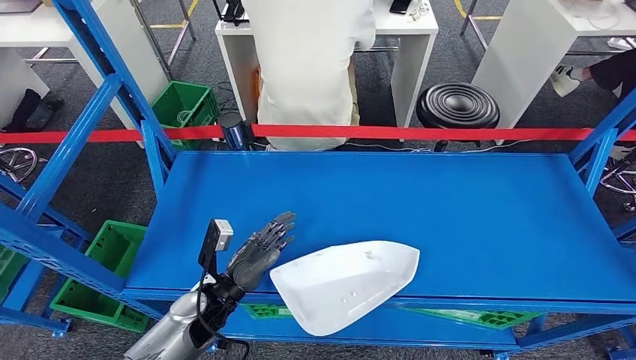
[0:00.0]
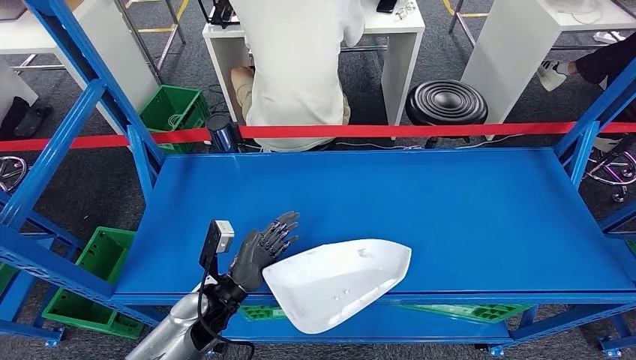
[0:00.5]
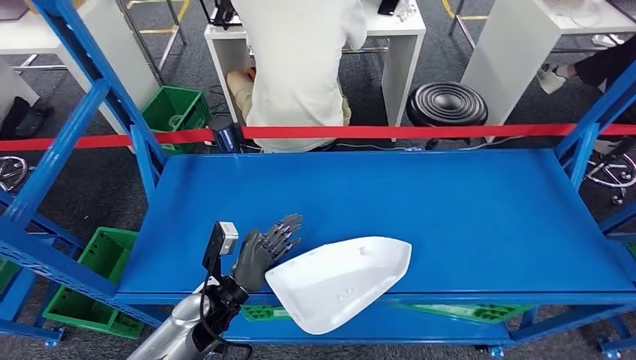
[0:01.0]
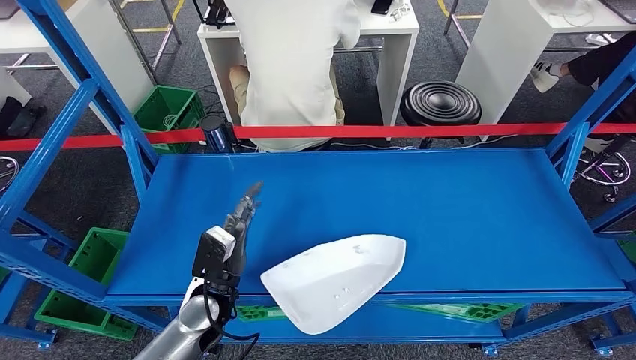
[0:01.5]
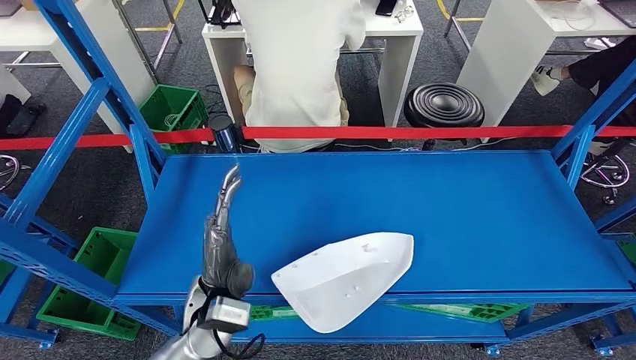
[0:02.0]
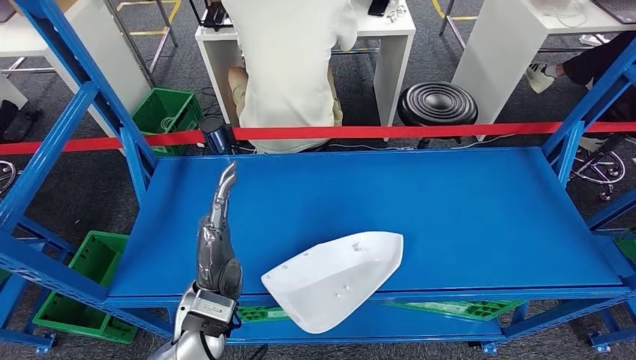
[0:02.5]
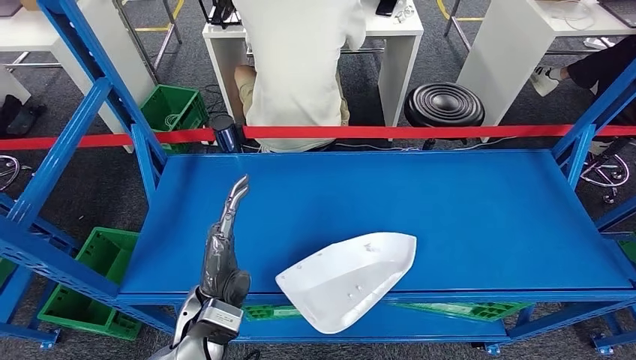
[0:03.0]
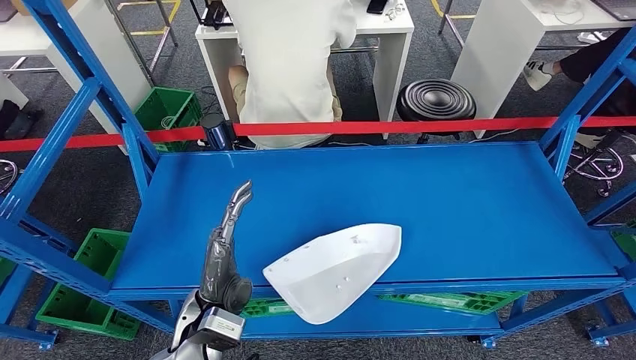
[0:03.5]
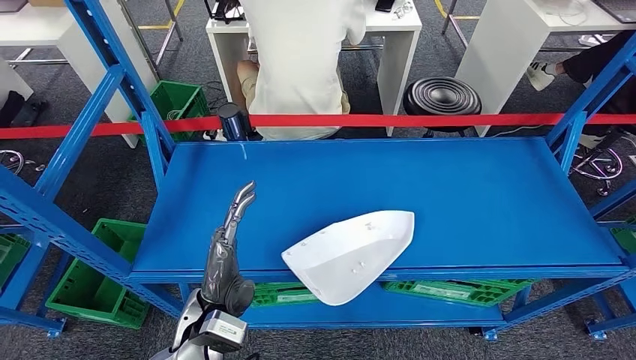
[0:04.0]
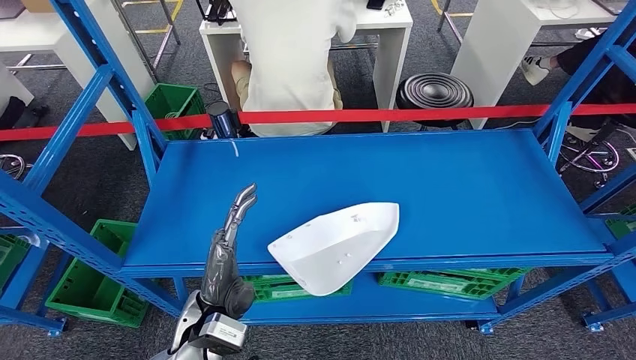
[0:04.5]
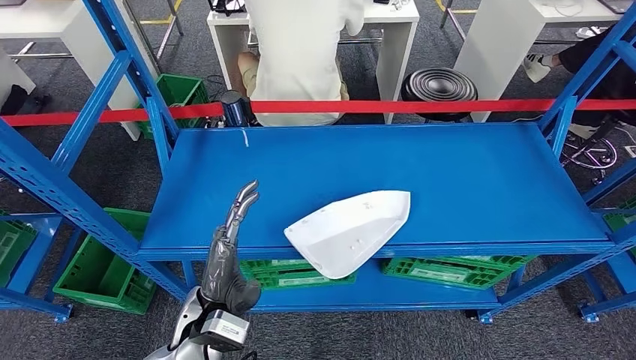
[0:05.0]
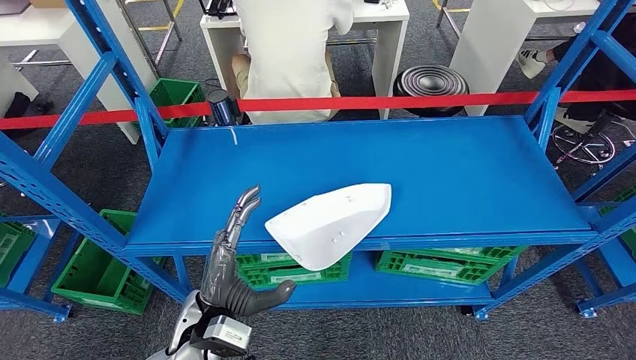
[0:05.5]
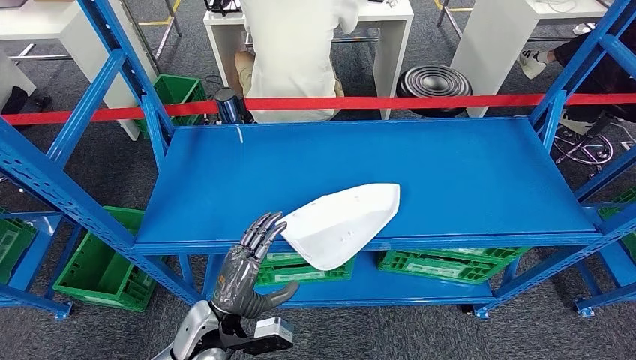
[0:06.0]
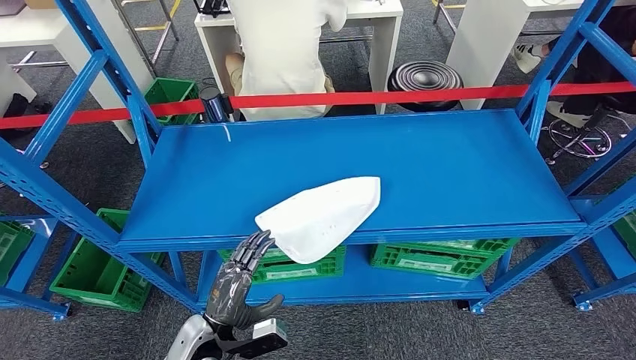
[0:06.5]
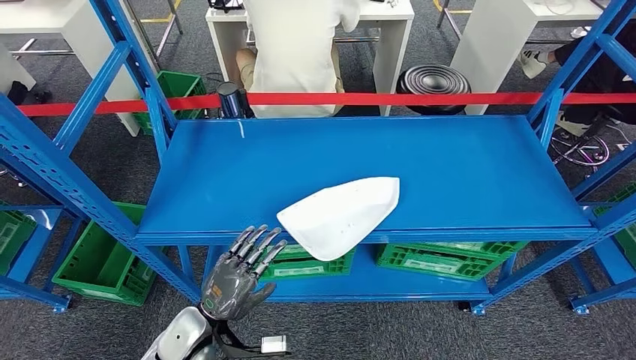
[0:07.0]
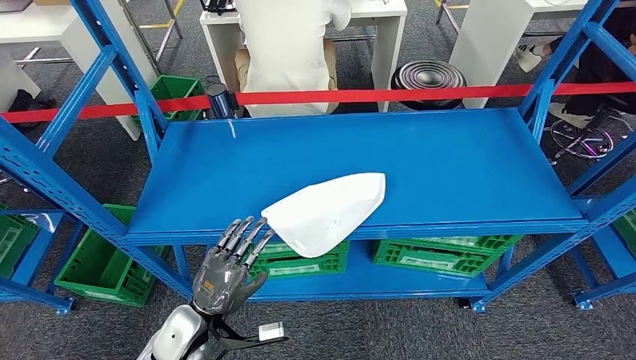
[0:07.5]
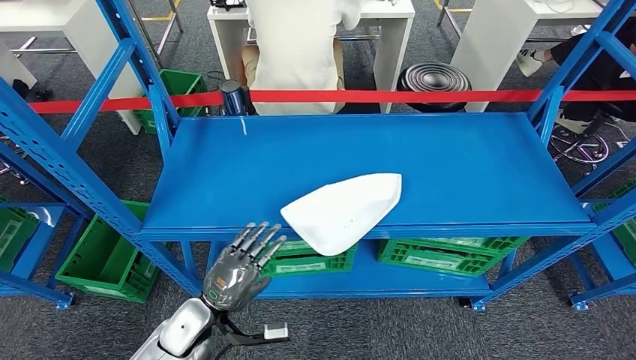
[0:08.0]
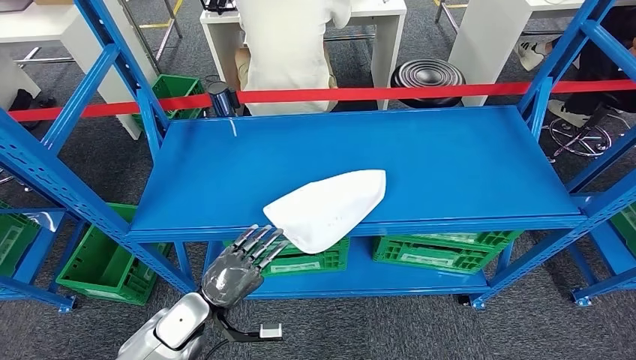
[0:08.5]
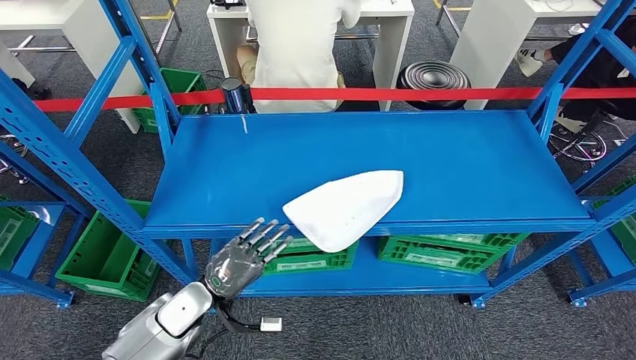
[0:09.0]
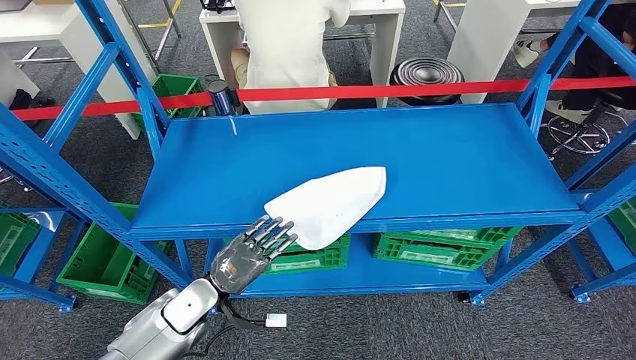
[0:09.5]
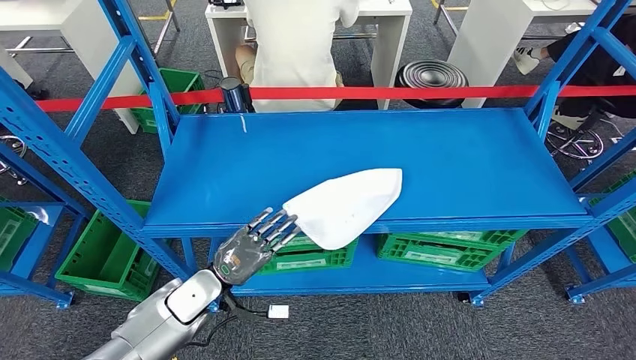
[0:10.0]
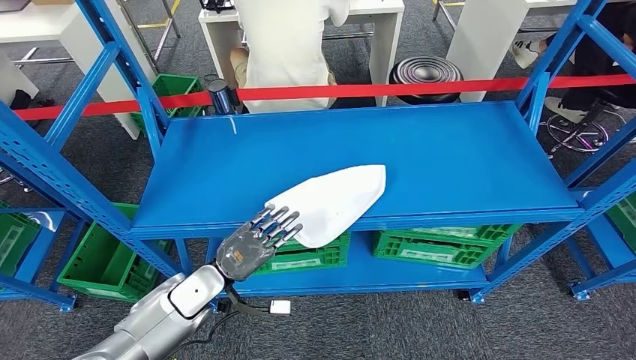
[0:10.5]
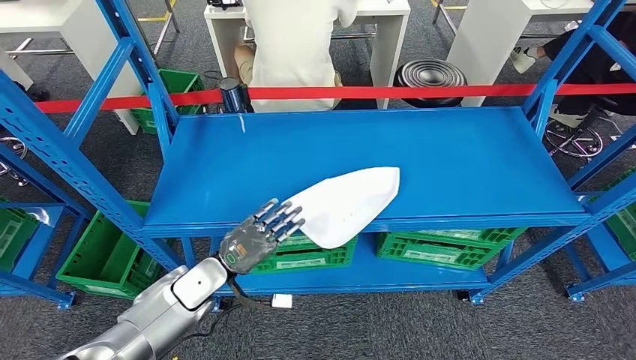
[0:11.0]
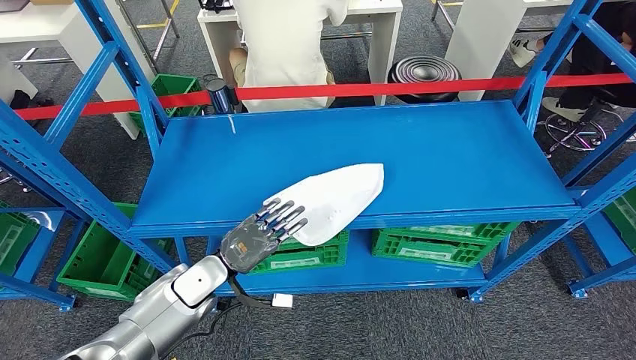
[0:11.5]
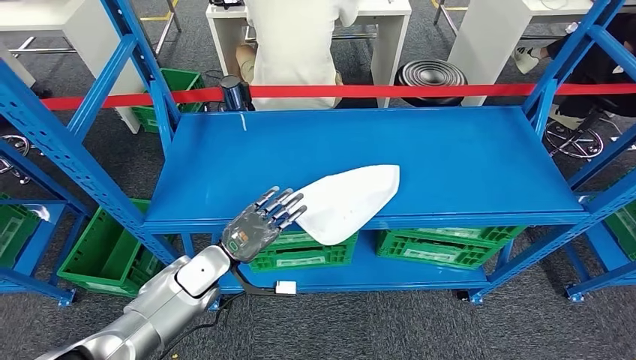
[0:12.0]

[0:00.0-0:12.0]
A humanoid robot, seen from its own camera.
0:08.0 to 0:10.0: The left hand travels forward by roughly 5 cm. Meanwhile the right hand shifts by roughly 5 cm.
0:10.0 to 0:12.0: The hands make only small movements.

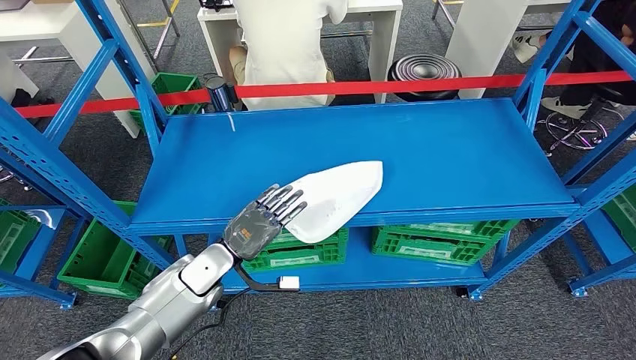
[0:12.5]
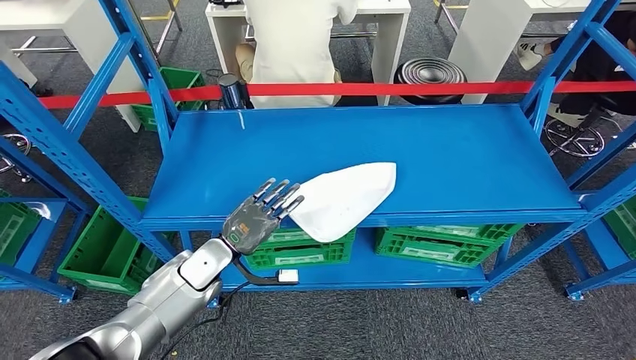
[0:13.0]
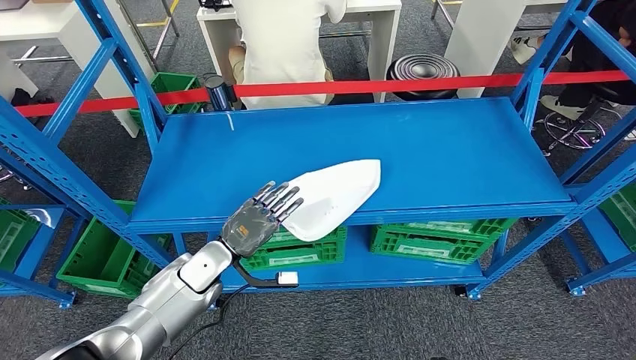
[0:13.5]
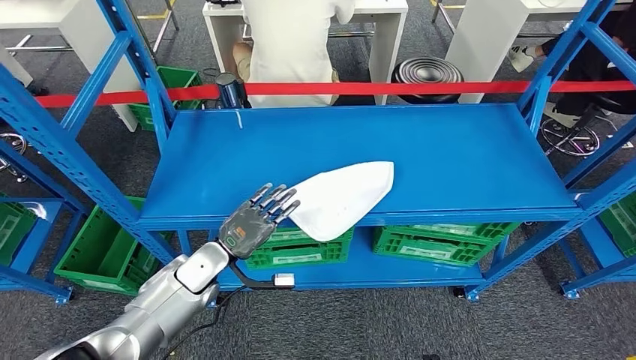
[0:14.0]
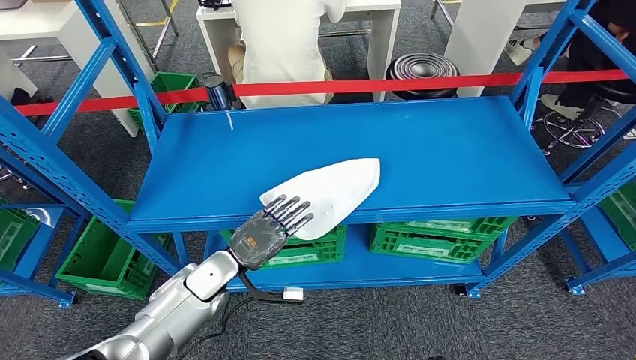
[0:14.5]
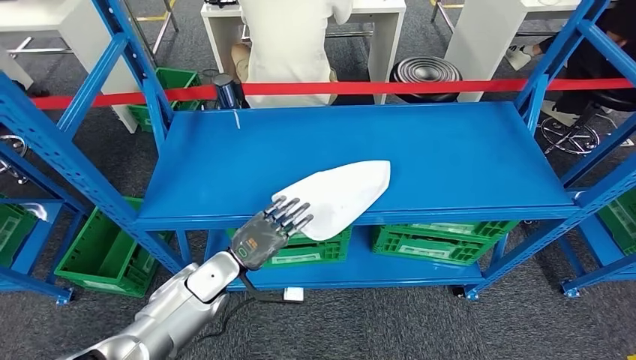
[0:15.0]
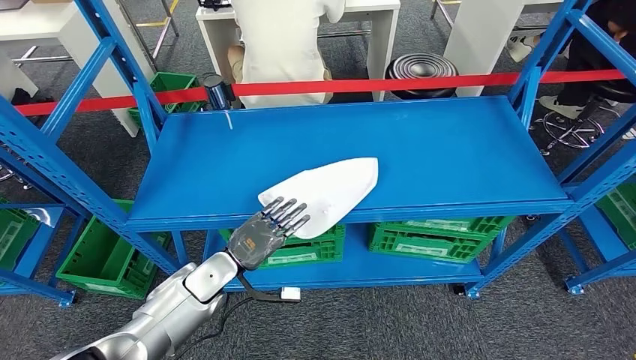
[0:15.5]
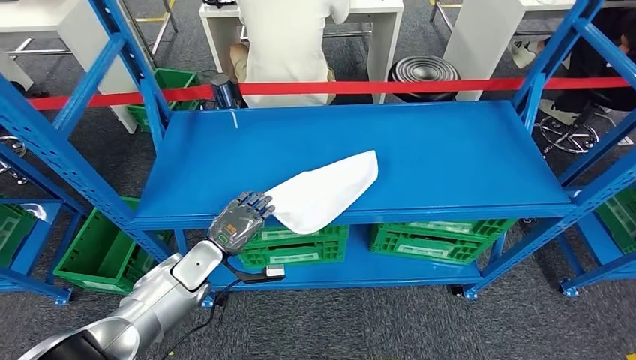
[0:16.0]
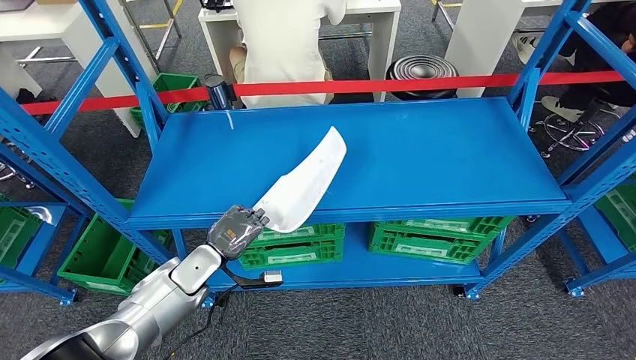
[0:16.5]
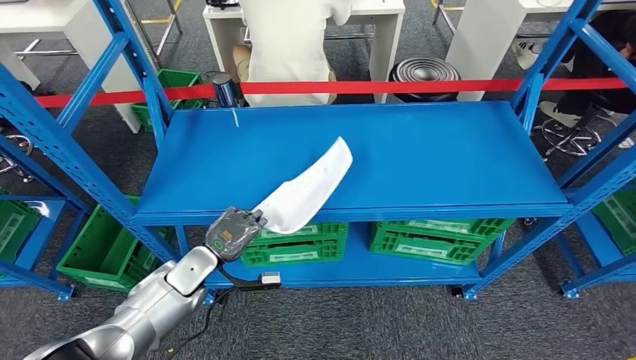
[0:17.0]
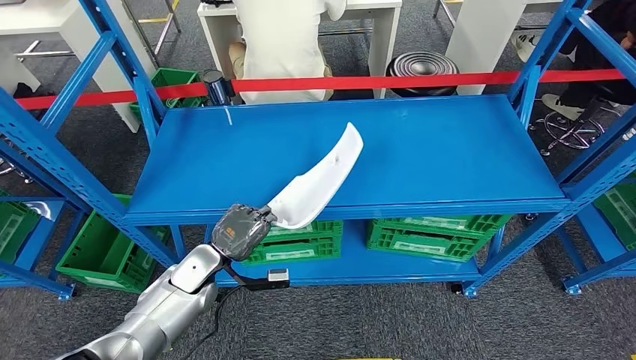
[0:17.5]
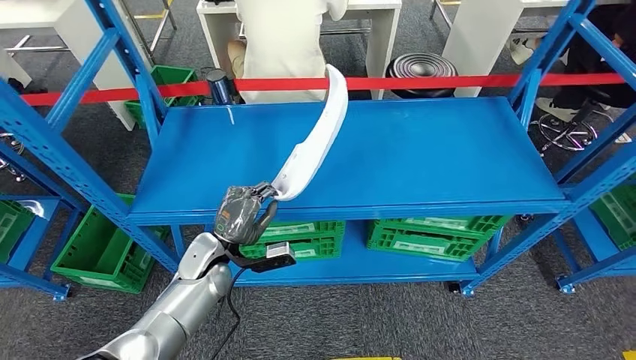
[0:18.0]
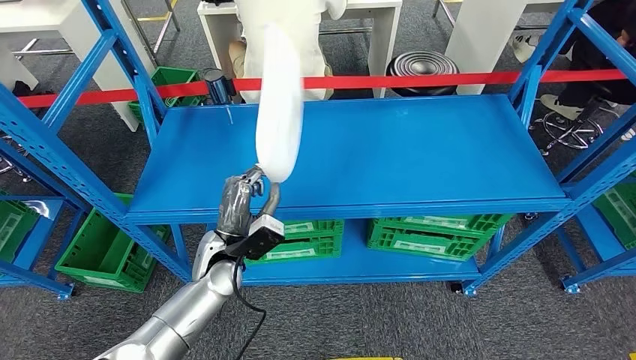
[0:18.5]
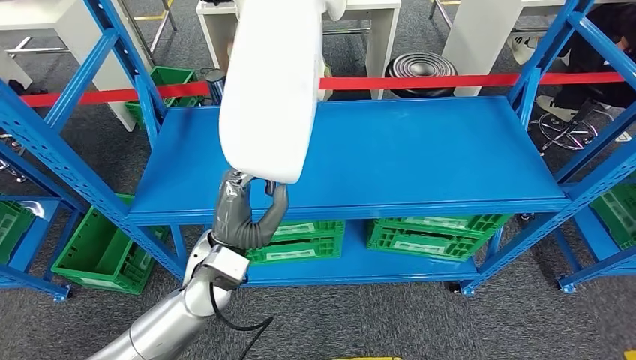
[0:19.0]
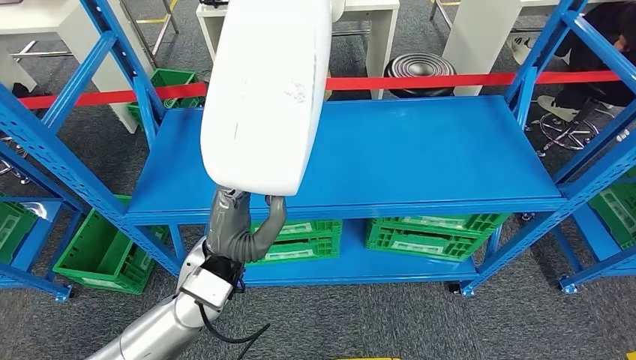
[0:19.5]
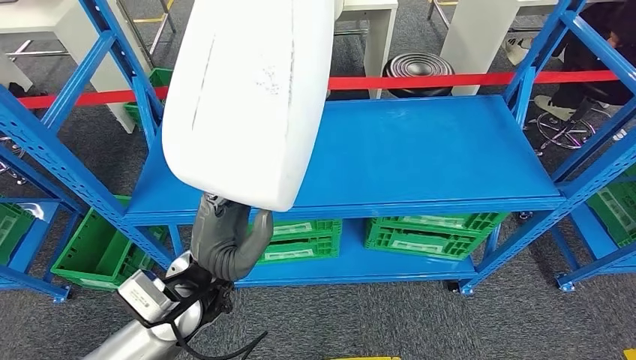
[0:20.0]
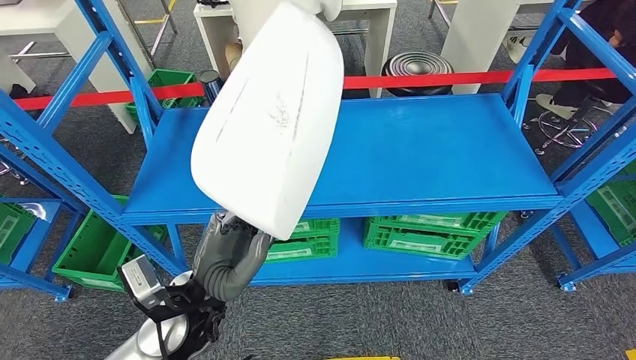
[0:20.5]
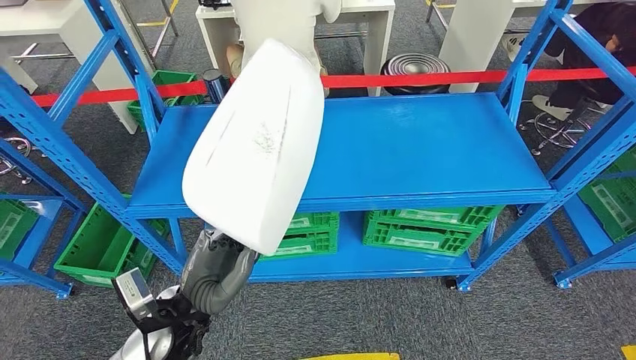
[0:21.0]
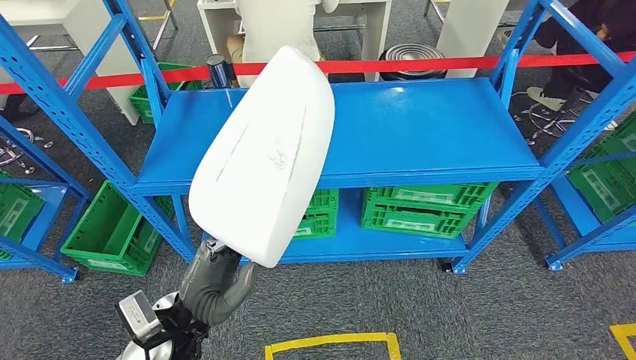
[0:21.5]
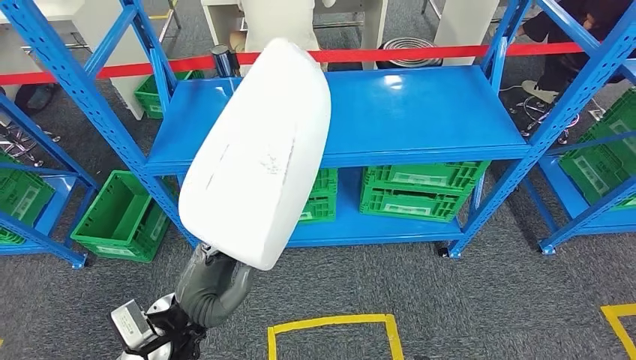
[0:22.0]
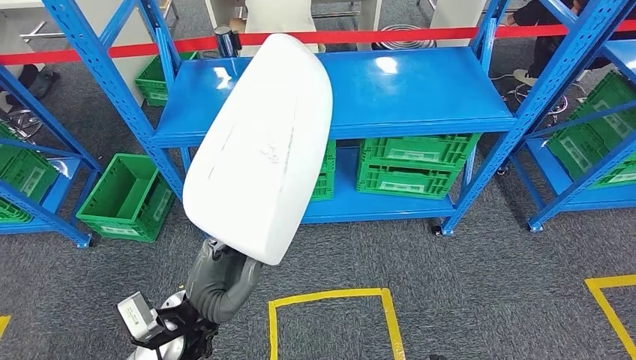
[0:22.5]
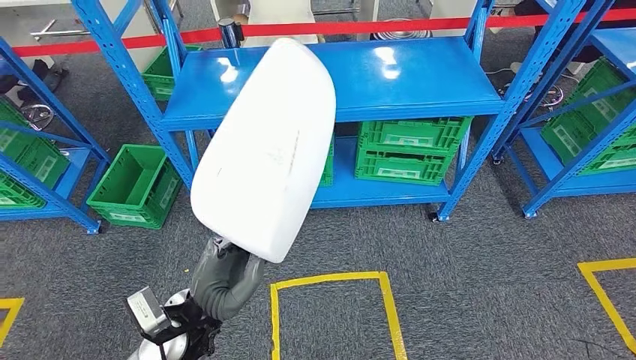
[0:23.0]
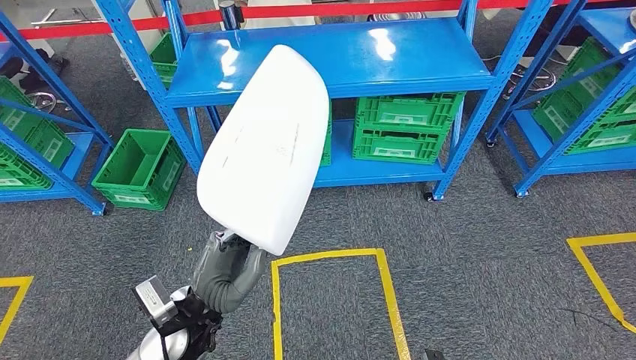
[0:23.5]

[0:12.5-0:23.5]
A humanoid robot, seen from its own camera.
Step, 0:12.5 to 0:20.0: Pick up the small parts from the shelf.
0:12.5 to 0:14.5: There are only small adjustments of the hands.
